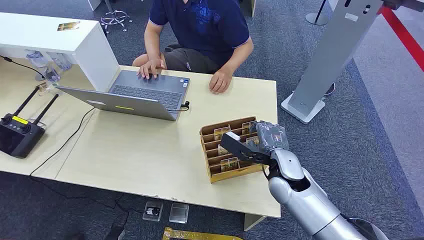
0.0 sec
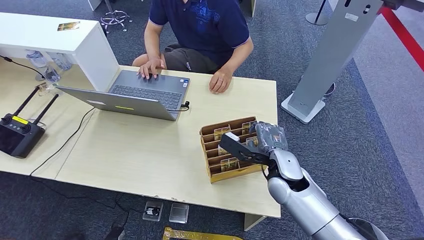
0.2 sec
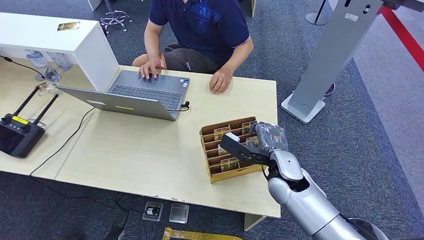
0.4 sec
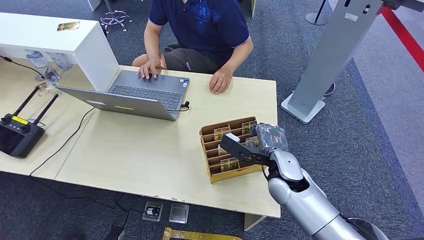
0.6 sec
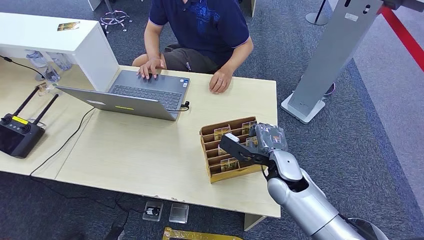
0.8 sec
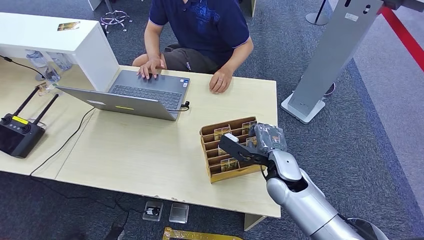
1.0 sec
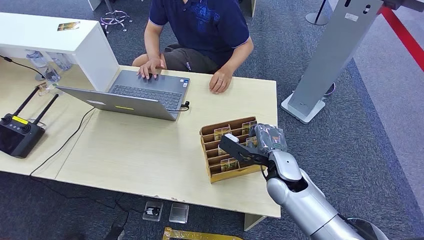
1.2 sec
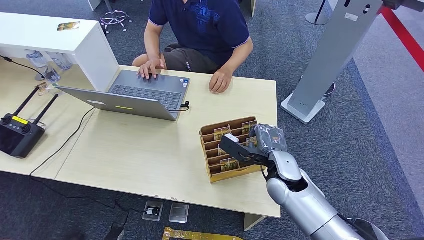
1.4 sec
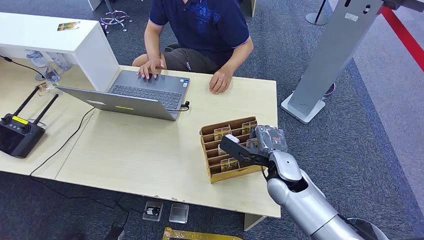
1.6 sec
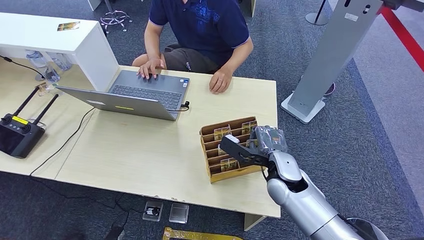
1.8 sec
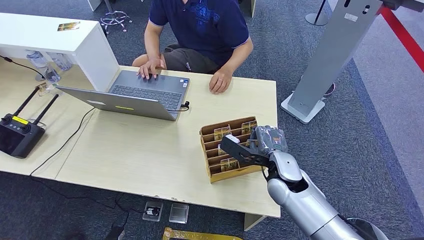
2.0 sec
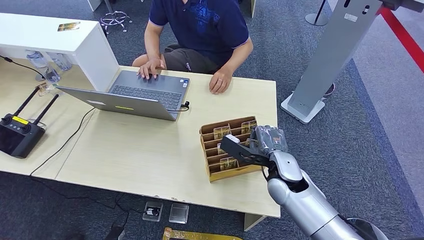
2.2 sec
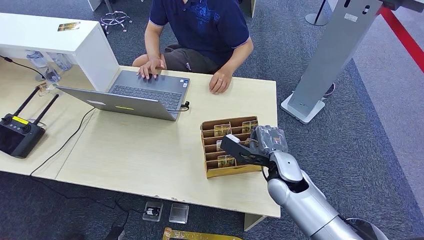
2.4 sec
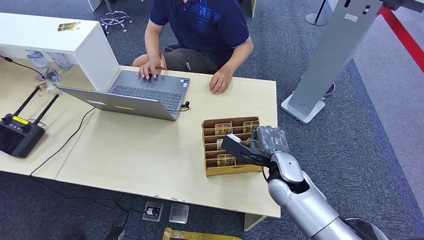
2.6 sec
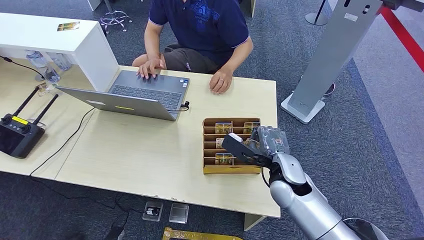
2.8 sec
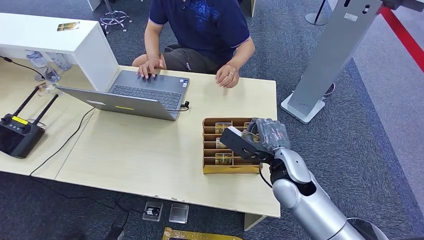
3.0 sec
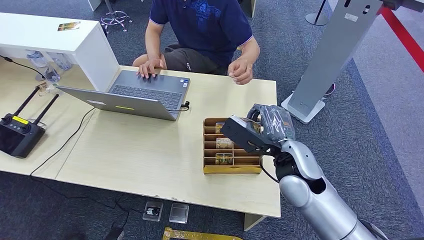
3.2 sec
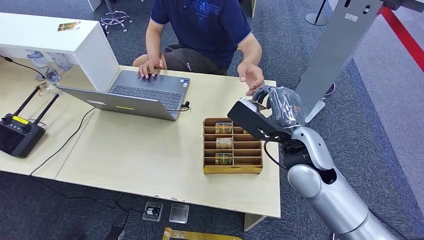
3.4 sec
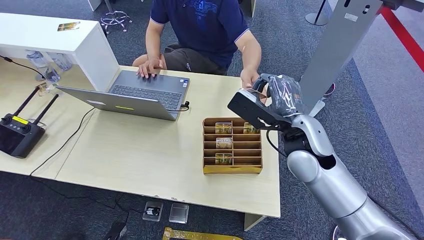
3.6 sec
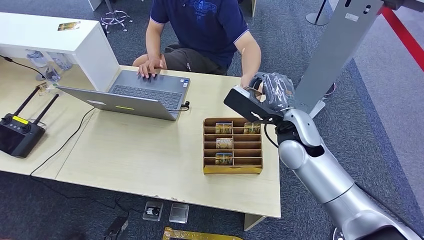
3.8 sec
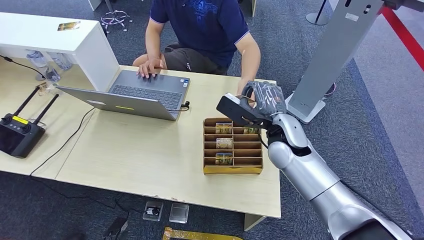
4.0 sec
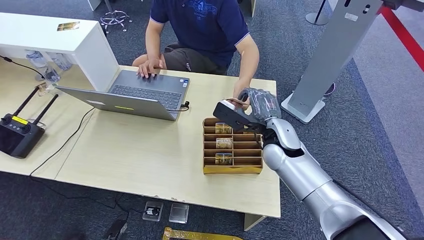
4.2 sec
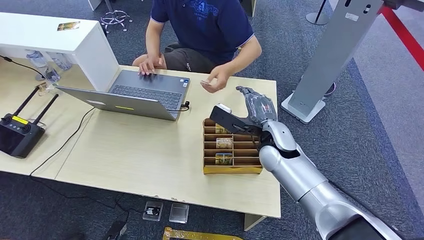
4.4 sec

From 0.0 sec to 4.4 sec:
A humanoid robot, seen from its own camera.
Step, from 0.0 sec to 3.0 sec: Pick up the room card from the card holder.
Step, from 3.6 sec to 4.4 sec: Hand the room card to the target.
From 1.4 sec to 3.0 sec: The hands move only a little.
From 3.0 sec to 4.4 sec: The right hand shifts roughly 5 cm forward, and moves approximately 10 cm upward and comes back.

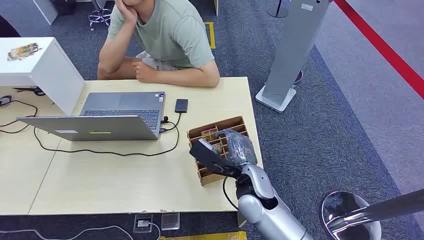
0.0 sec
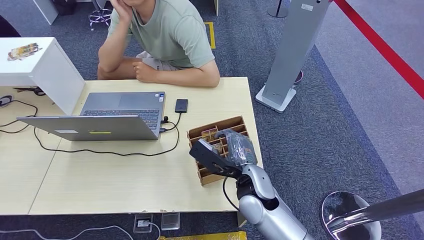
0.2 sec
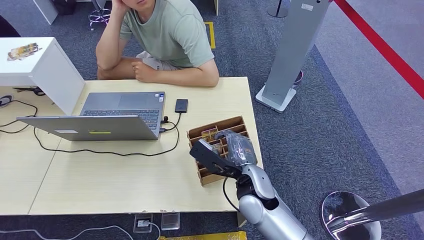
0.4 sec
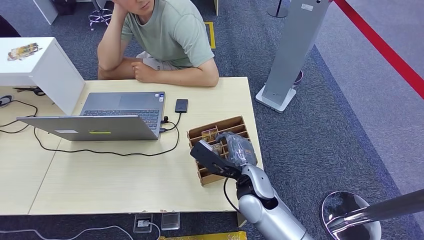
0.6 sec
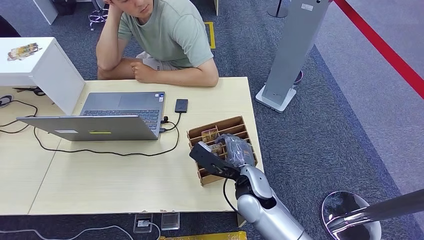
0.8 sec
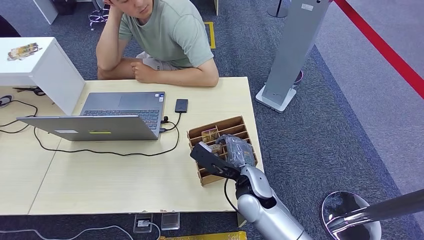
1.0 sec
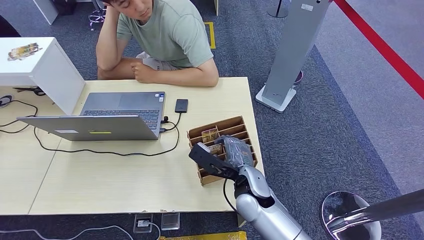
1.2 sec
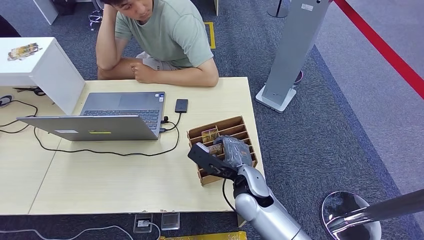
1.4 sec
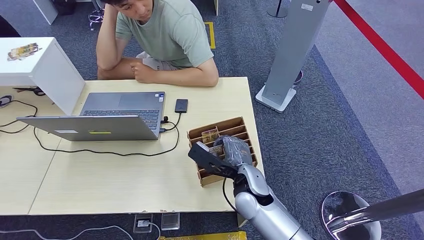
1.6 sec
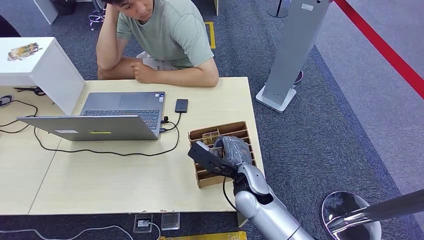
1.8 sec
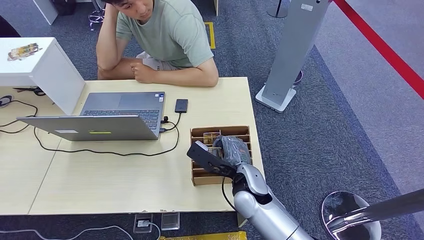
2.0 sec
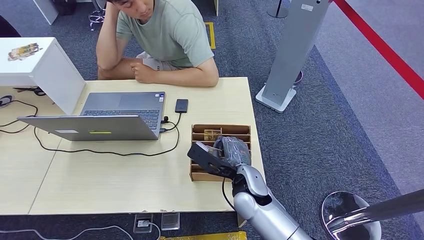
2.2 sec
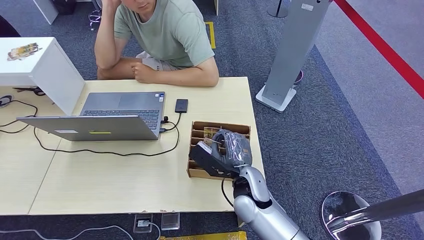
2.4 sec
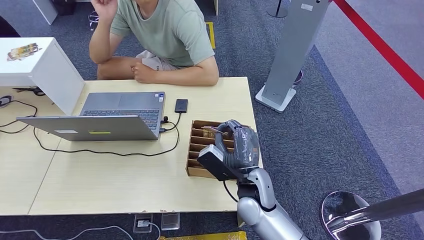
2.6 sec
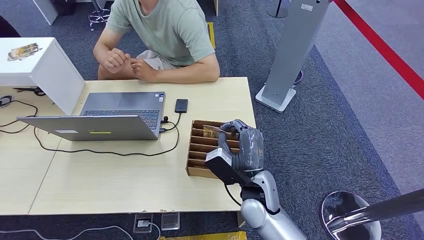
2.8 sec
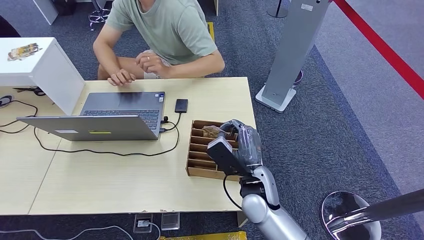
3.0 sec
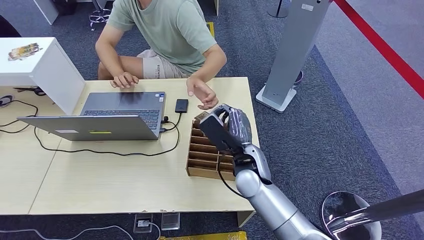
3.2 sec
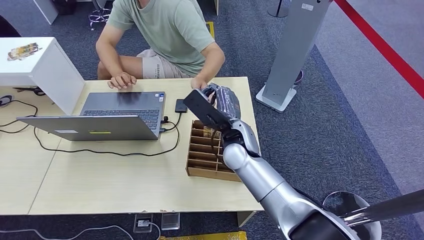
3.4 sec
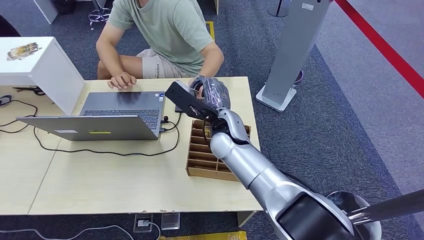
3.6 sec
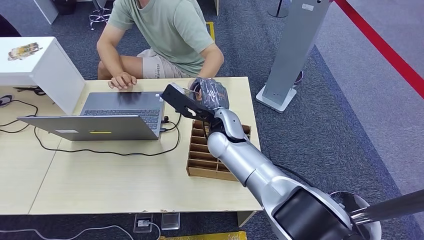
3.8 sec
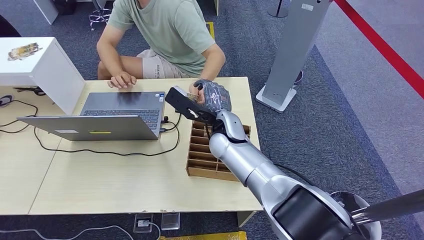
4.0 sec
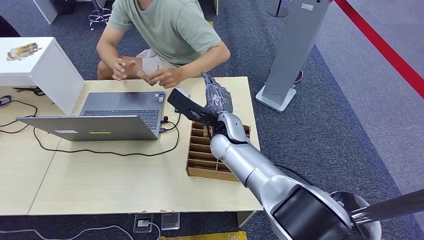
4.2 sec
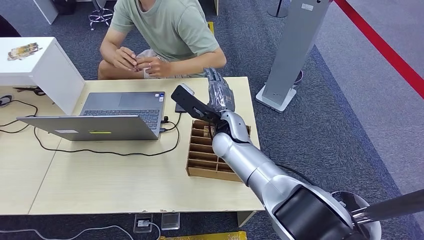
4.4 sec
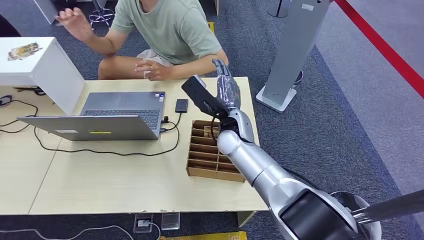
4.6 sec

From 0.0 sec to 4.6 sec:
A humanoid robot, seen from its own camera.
Step, from 0.0 sec to 2.6 sec: Pick up the room card from the card holder.
Step, from 3.2 sec to 4.4 sec: Hand the room card to the target.
From 3.0 sec to 4.6 sec: The right hand shifts approximately 15 cm forward and upward.
